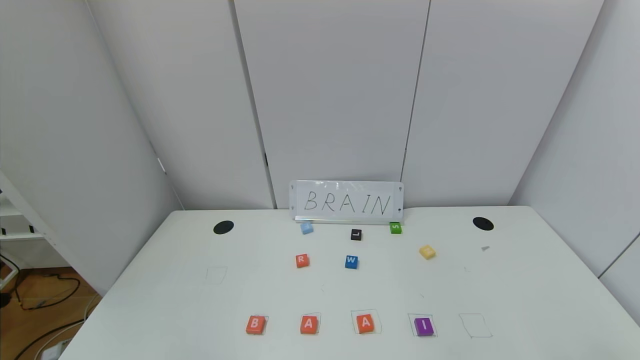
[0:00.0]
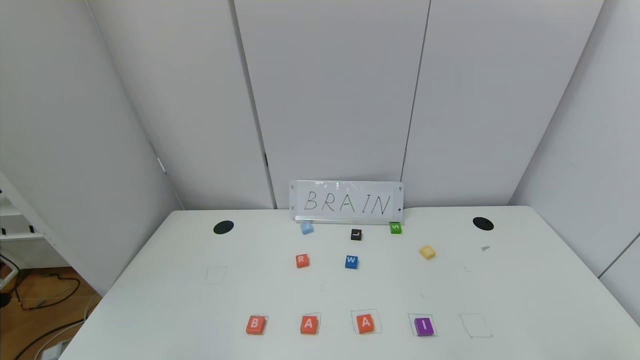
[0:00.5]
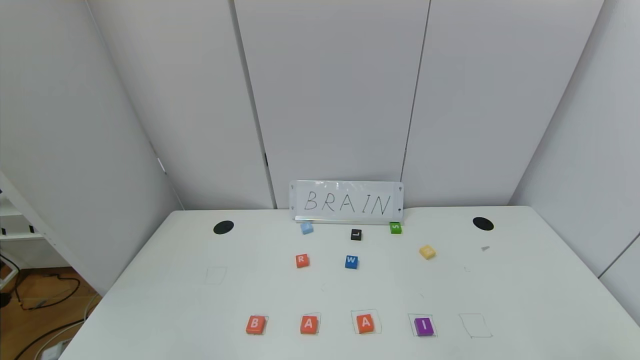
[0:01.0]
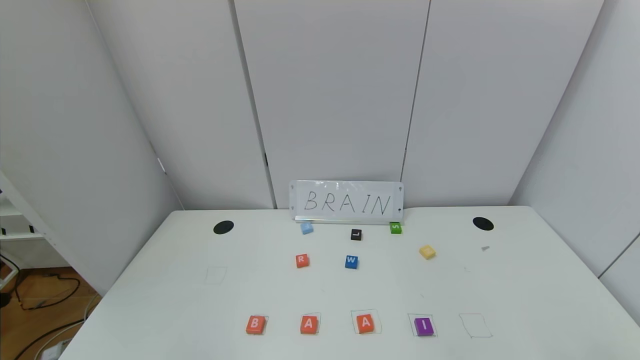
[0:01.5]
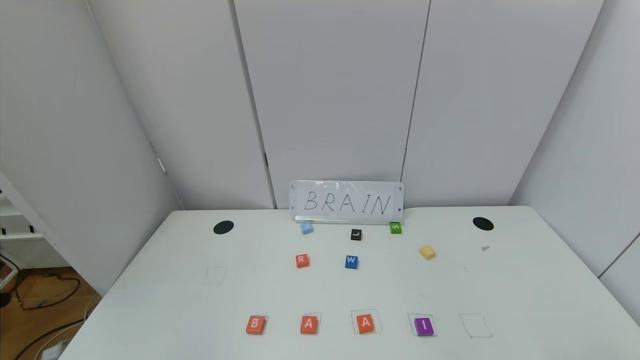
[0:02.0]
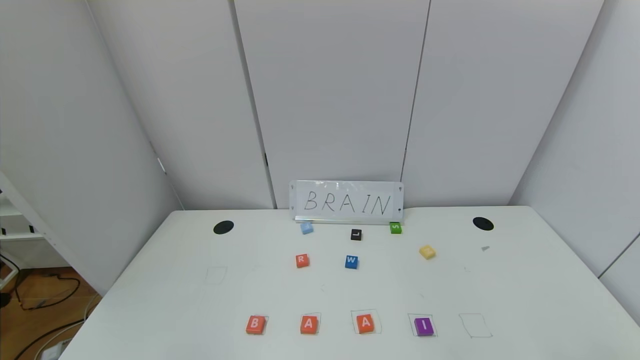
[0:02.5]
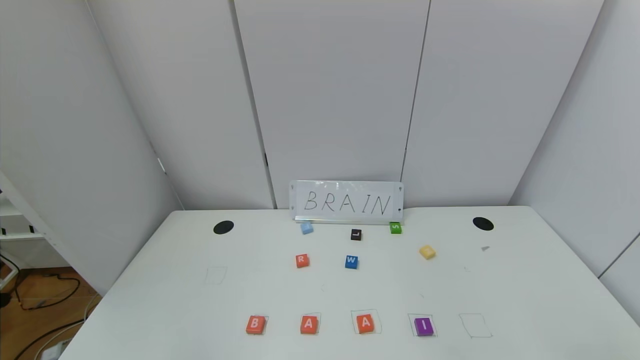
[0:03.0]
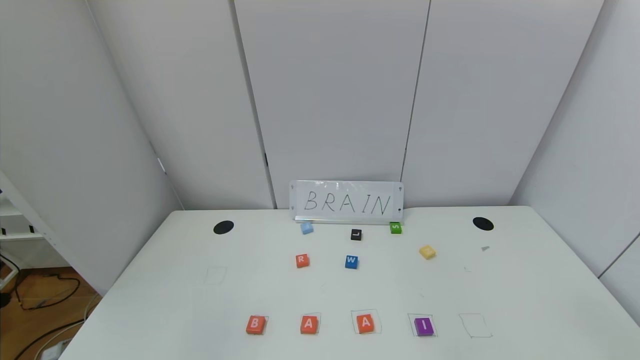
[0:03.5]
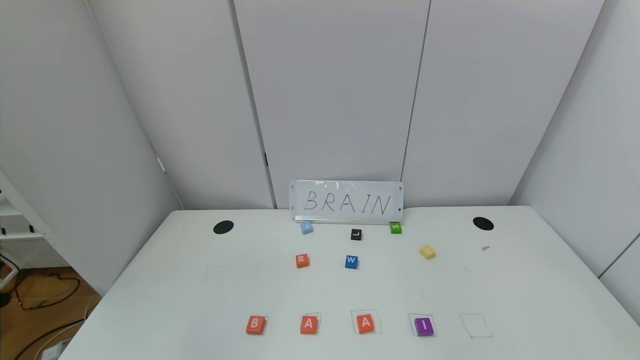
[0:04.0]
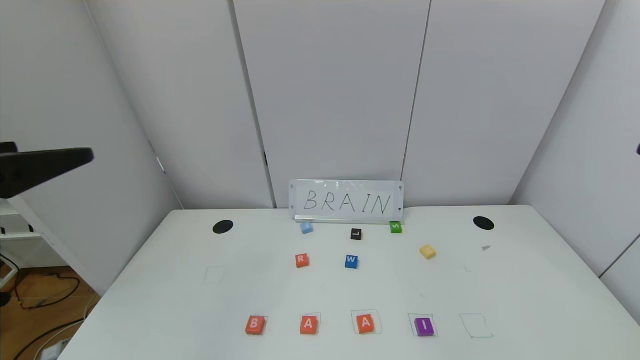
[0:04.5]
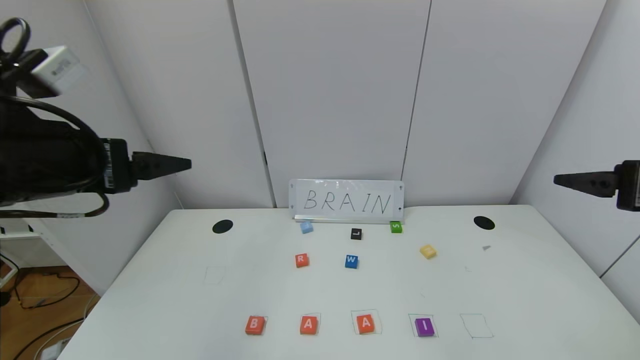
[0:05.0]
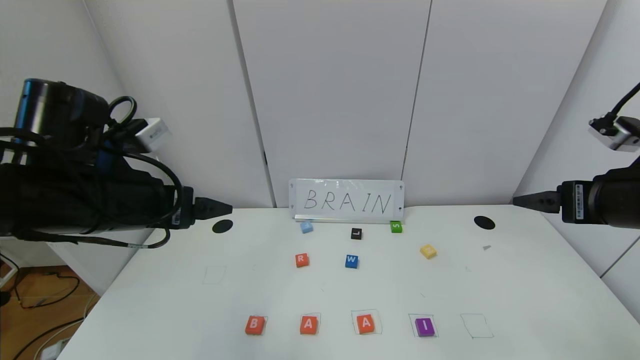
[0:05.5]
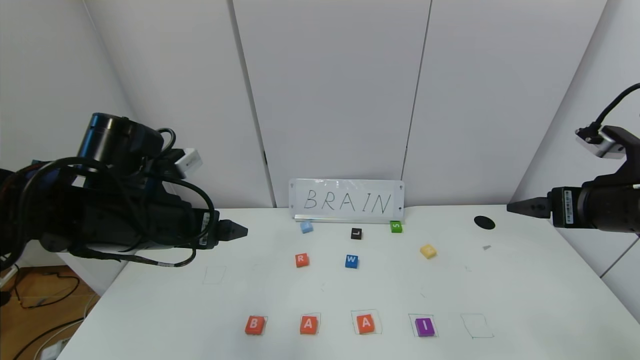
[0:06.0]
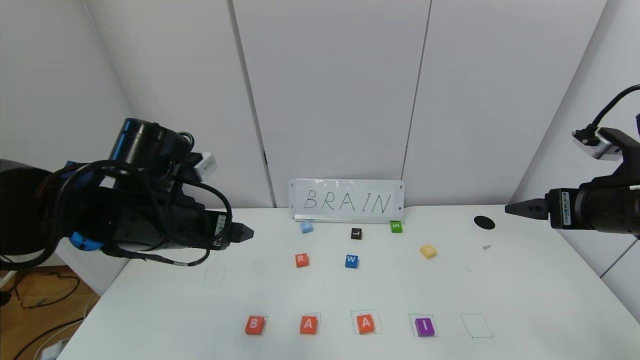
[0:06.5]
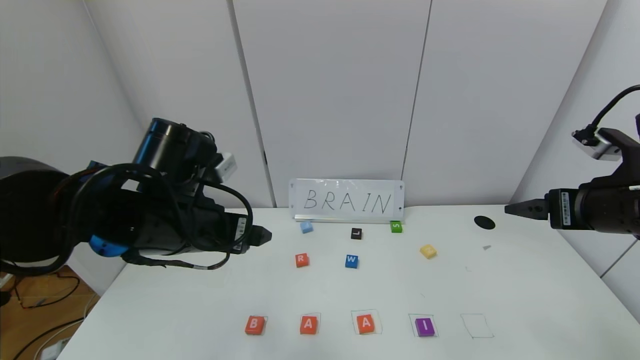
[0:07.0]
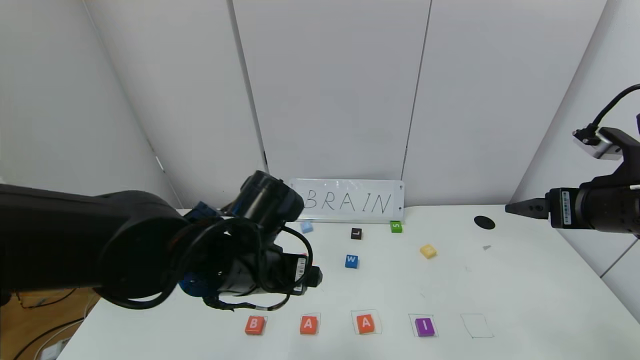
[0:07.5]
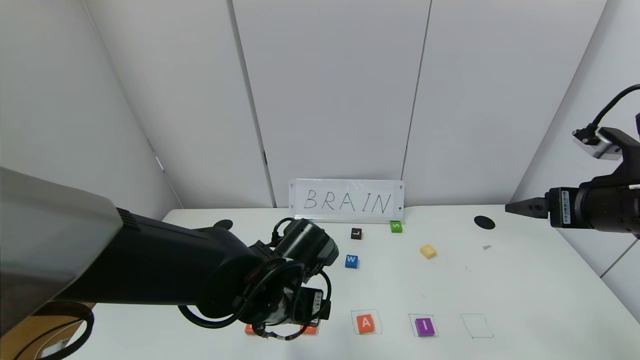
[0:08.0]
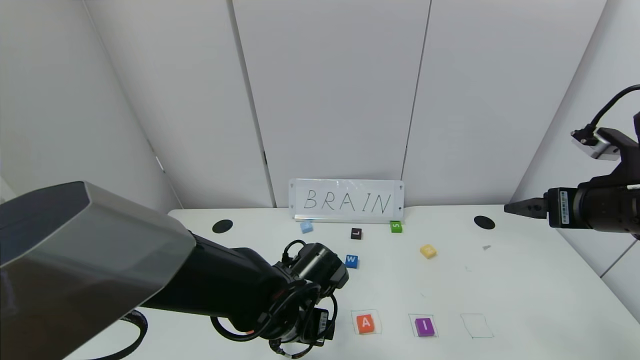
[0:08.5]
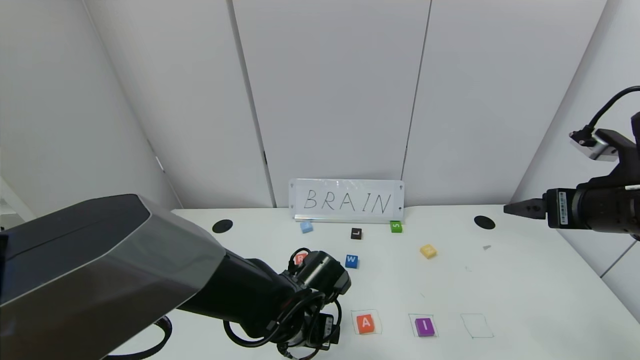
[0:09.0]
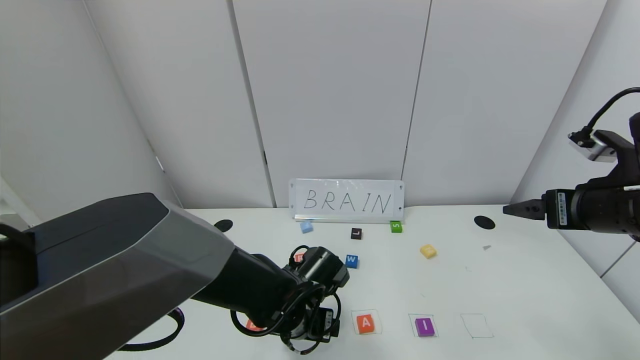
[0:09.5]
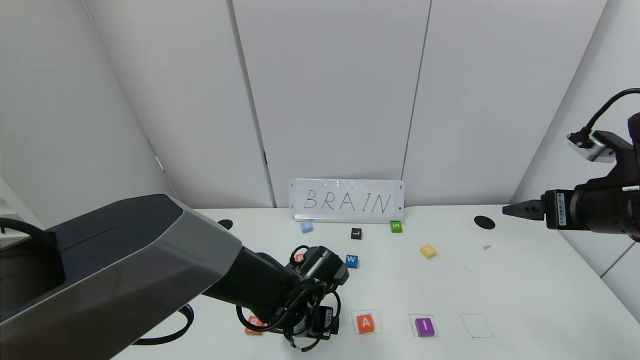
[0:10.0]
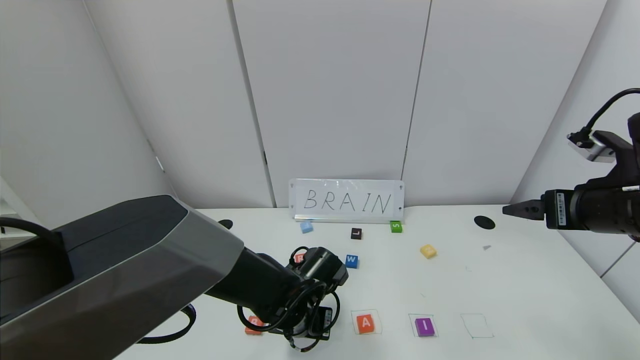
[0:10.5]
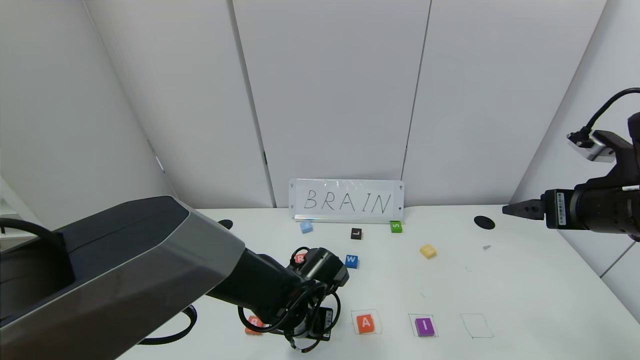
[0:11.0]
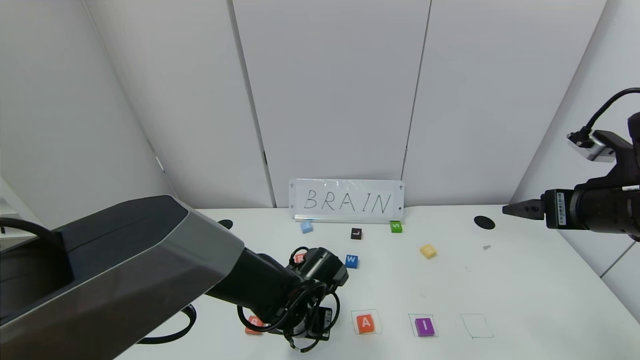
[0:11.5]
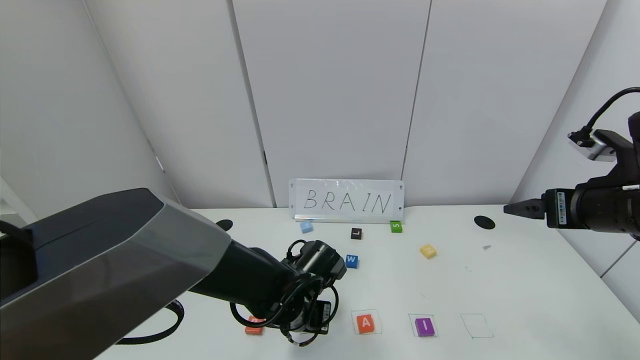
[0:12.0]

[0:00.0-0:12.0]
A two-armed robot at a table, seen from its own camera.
Task of the whole recording: use the gripper to find blocks with the letters b, a, a, and i on the table and arrange them into BAAI, then find r and N and turn the arranged baai into brian.
0:00.0 to 0:02.0: The two grippers keep their place.
0:04.0 to 0:06.0: The two grippers go roughly 25 cm forward.
0:06.0 to 0:08.0: The left gripper moves to the right and downward, roughly 20 cm.
0:08.0 to 0:10.0: The left gripper is displaced downward by about 10 cm.
0:10.0 to 0:12.0: The left gripper closes.

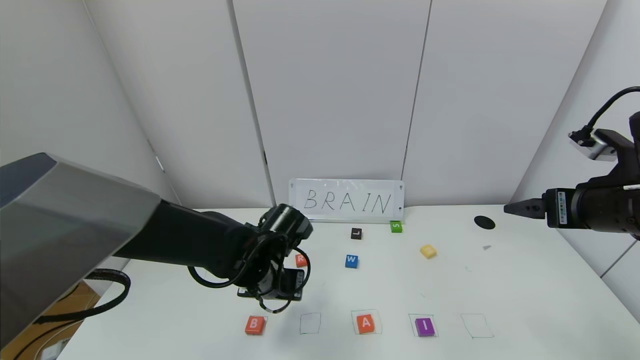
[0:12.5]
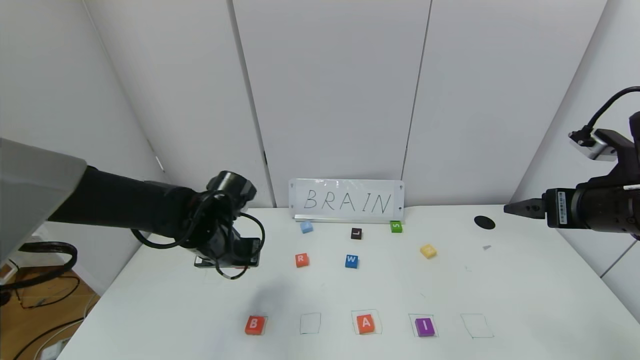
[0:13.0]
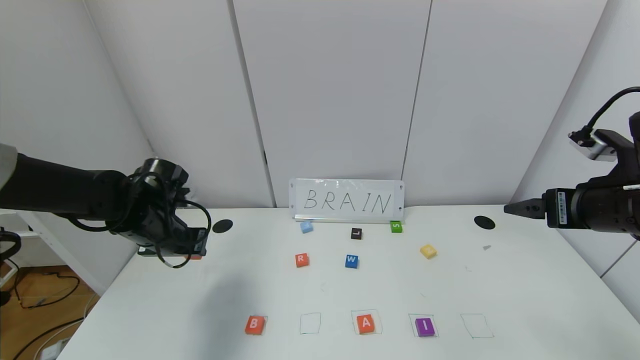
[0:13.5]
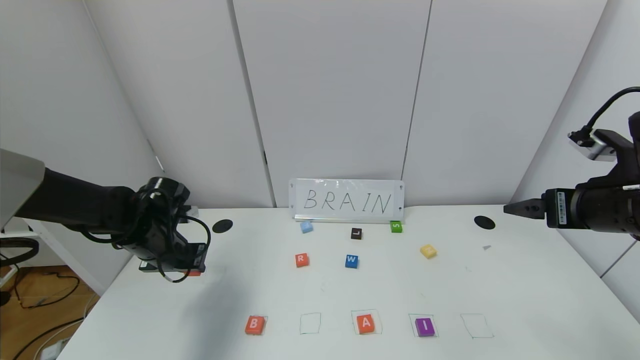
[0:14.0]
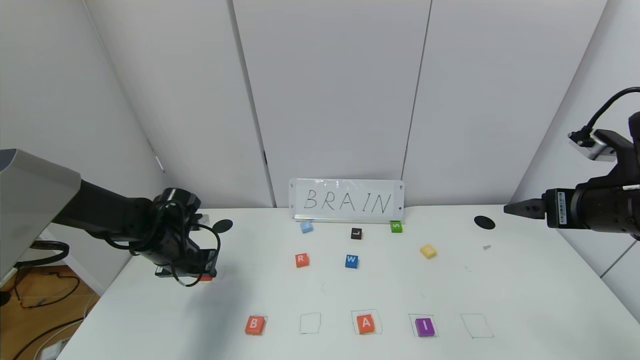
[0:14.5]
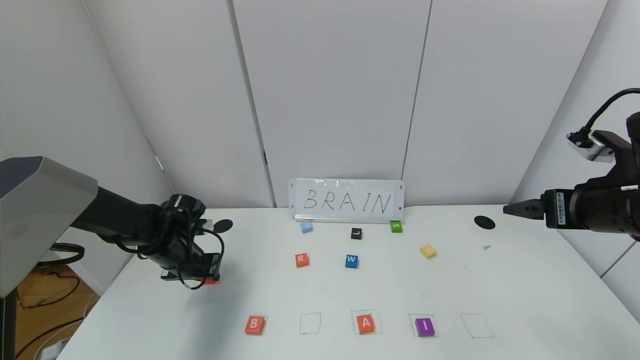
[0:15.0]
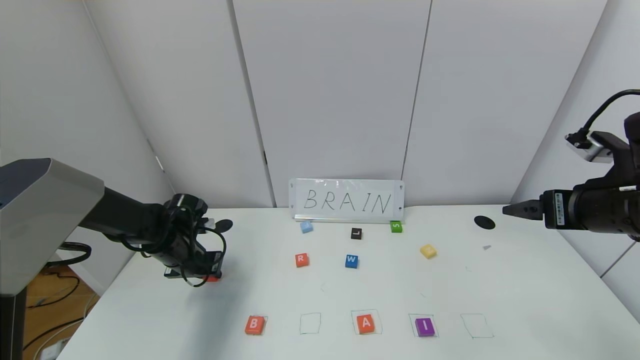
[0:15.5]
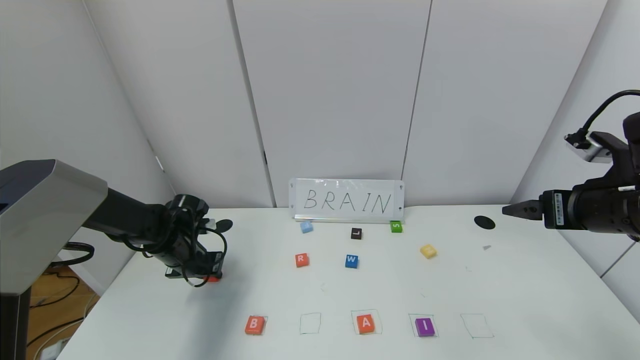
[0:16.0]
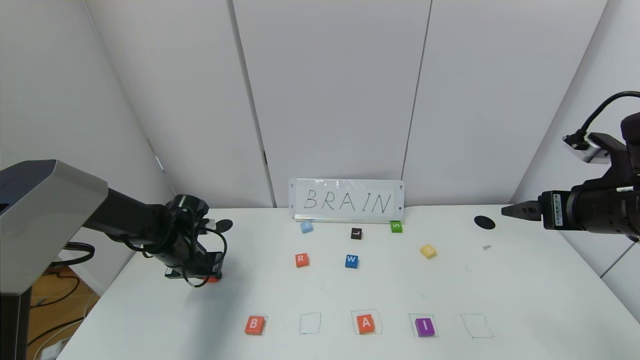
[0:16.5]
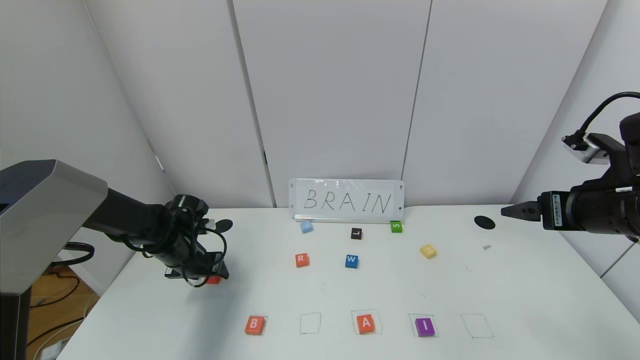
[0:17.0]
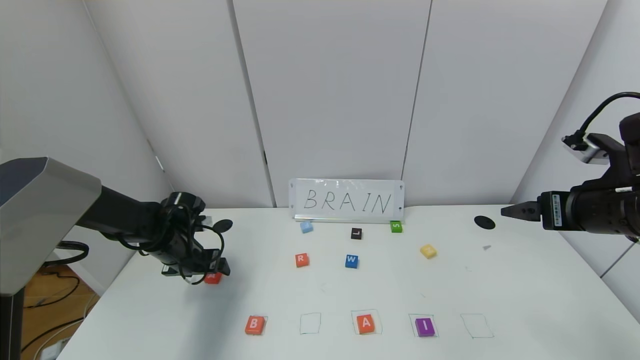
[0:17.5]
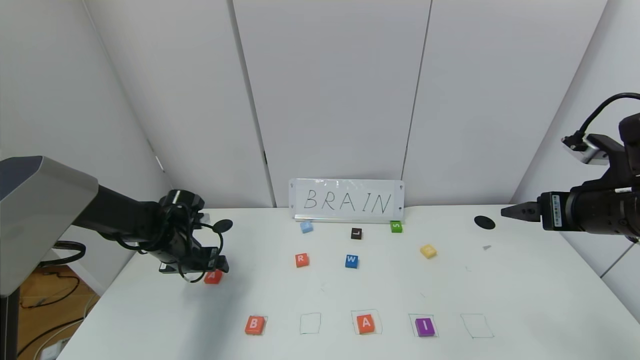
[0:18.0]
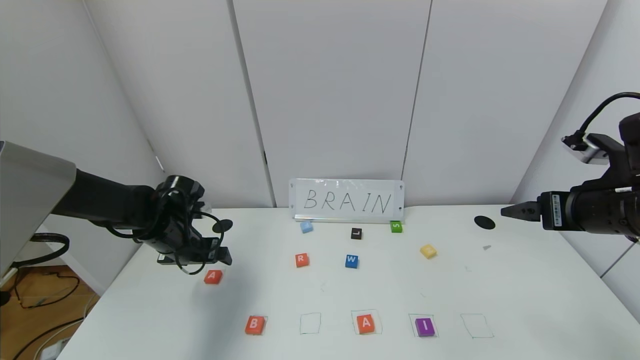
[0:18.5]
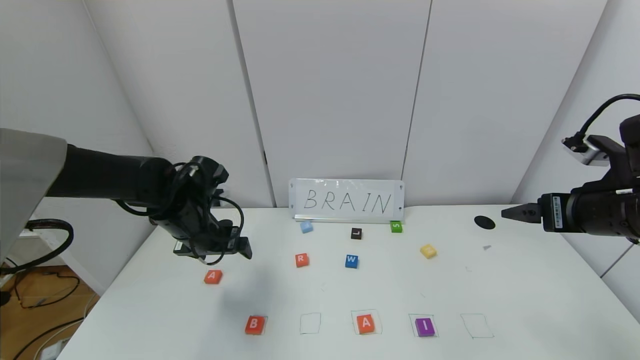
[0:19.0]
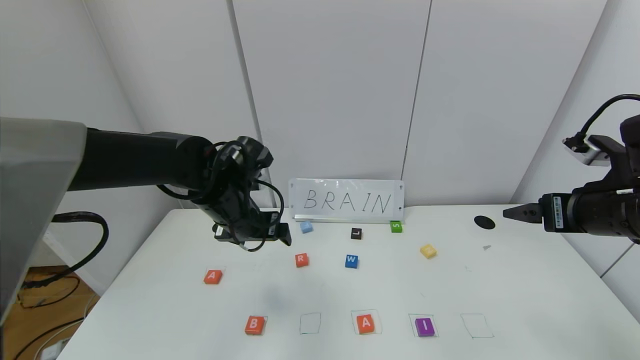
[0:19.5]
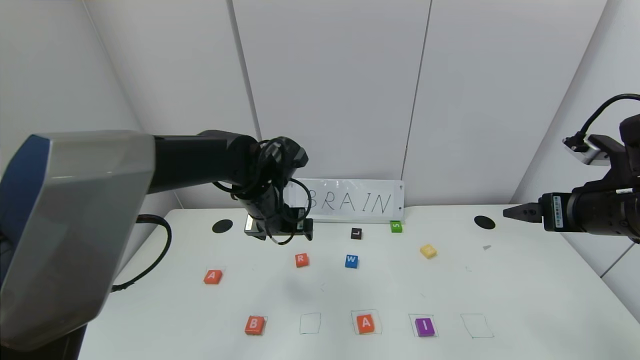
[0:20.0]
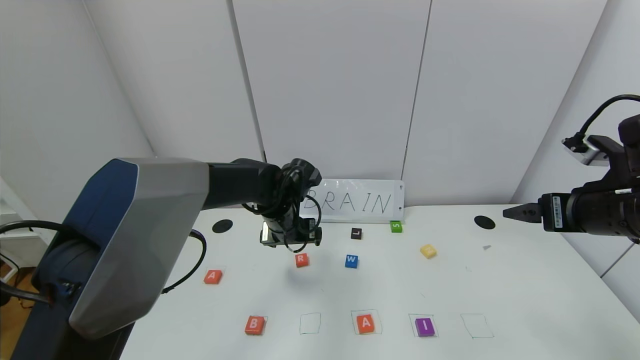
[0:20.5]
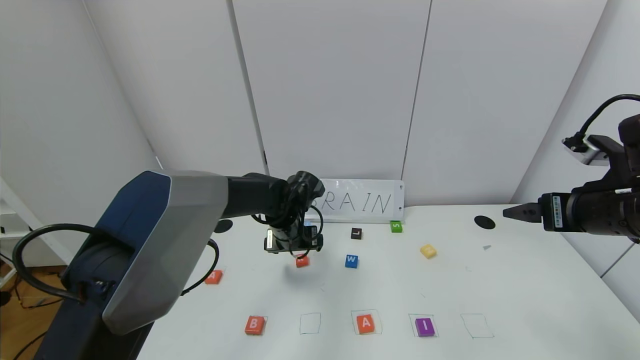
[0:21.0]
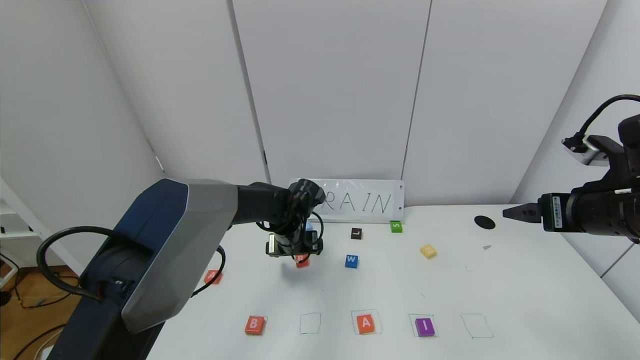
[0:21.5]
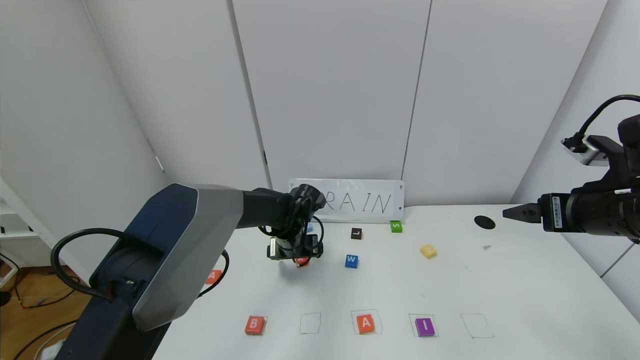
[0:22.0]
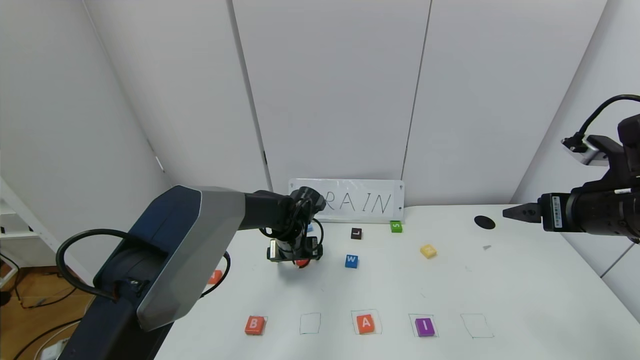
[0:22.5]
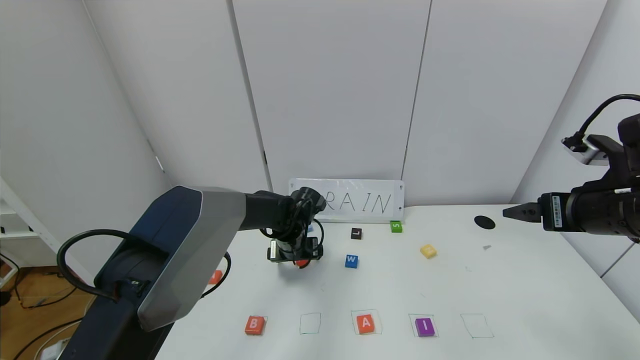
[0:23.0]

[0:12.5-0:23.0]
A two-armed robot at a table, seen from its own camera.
Task of the whole recording: use the gripper to find blocks with the letters b, a, a, and i on the table and arrange them into BAAI, then find r and N and turn the arranged baai into brian.
Step, 0:12.5 to 0:17.0: Move the block A out of the second location.
0:12.5 to 0:14.5: The left gripper moves to the left, approximately 20 cm.
0:14.5 to 0:16.5: There are only small adjustments of the grippers.
0:16.5 to 0:19.0: The left gripper shifts about 10 cm upward and to the right, and opens up.
0:19.0 to 0:21.0: The left gripper goes some 15 cm to the right.
0:21.0 to 0:23.0: There are only small adjustments of the grippers.
